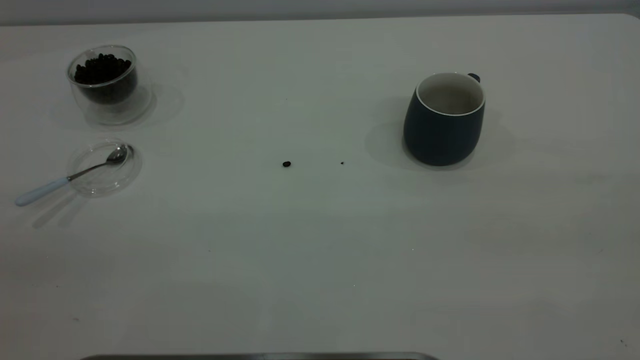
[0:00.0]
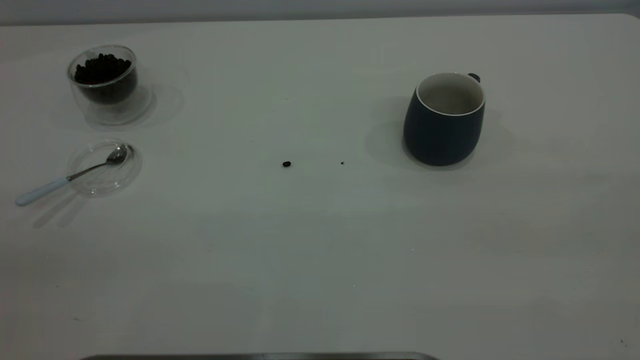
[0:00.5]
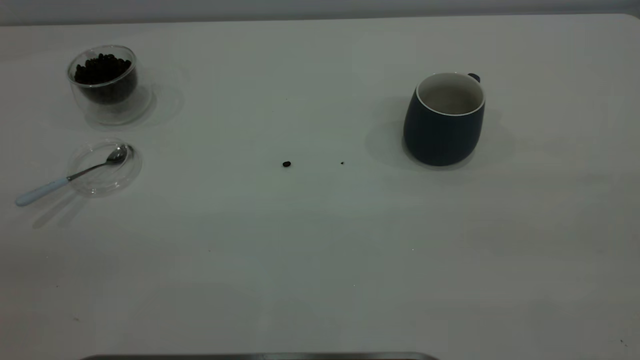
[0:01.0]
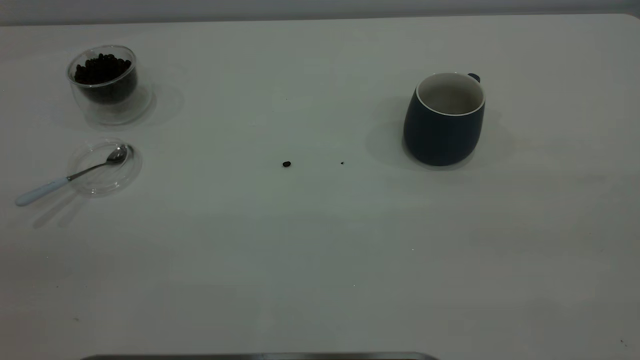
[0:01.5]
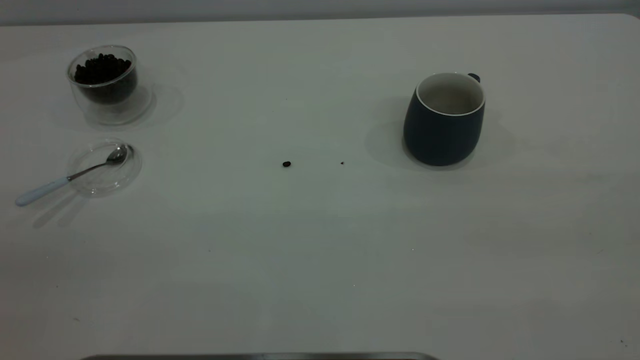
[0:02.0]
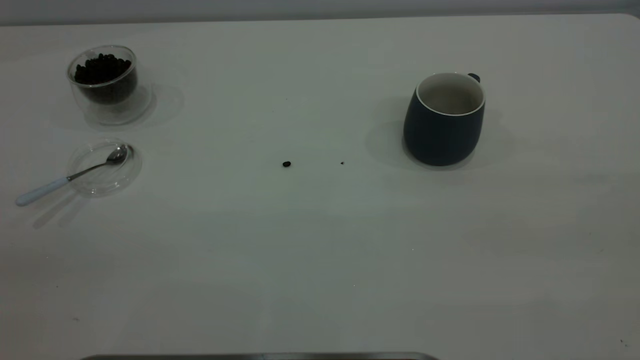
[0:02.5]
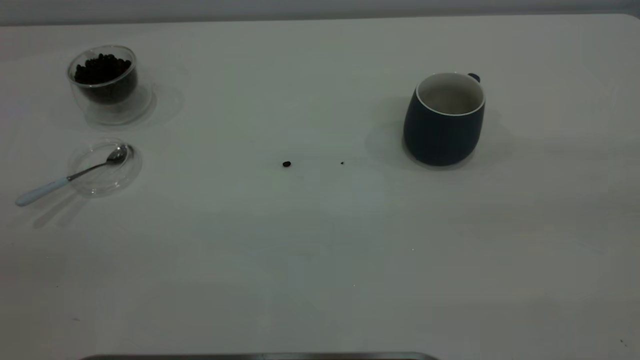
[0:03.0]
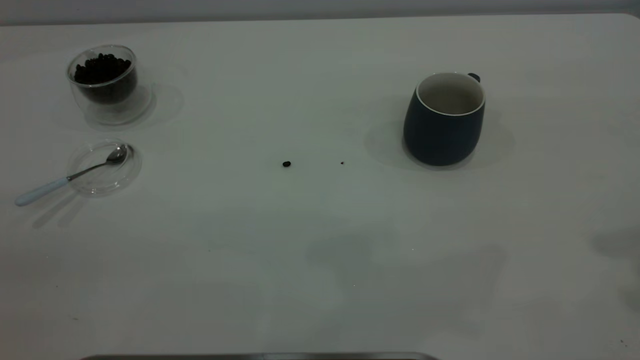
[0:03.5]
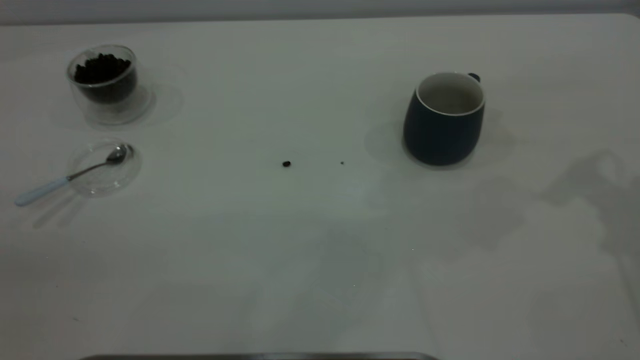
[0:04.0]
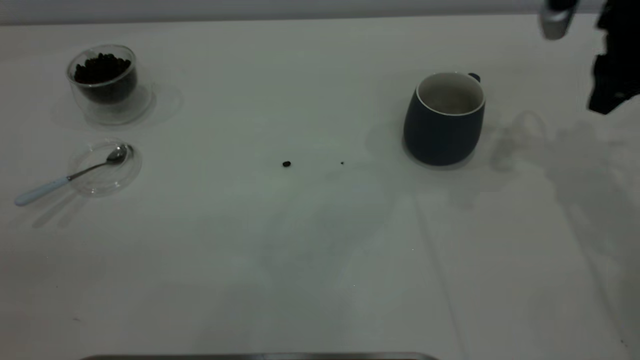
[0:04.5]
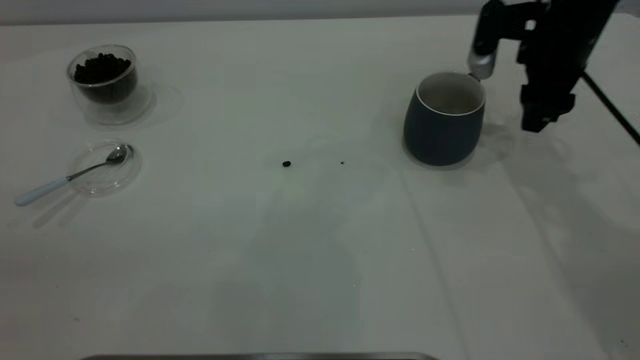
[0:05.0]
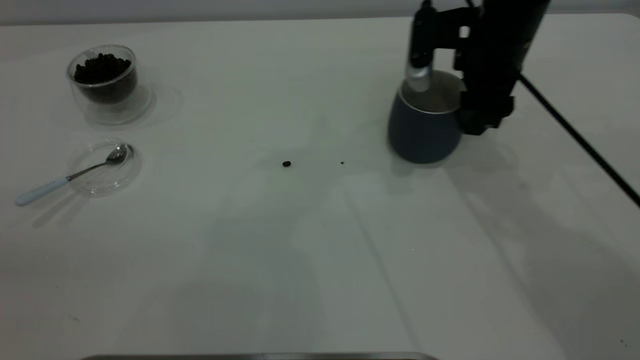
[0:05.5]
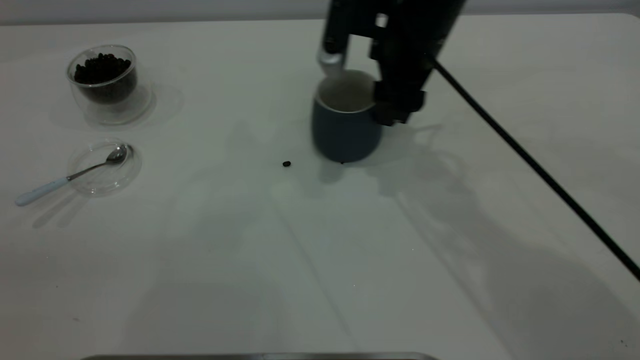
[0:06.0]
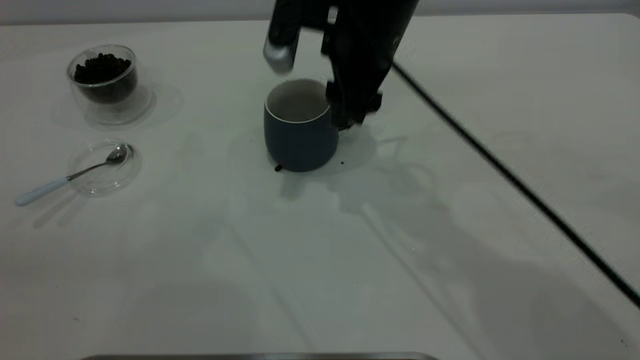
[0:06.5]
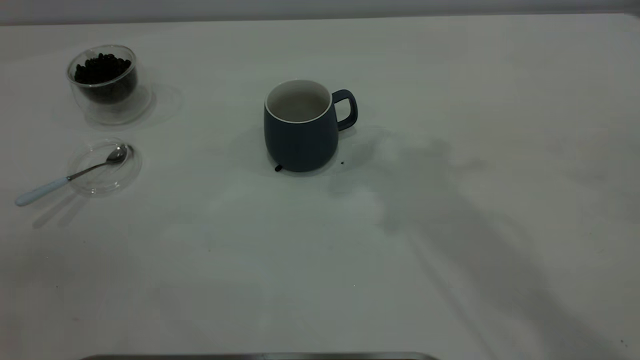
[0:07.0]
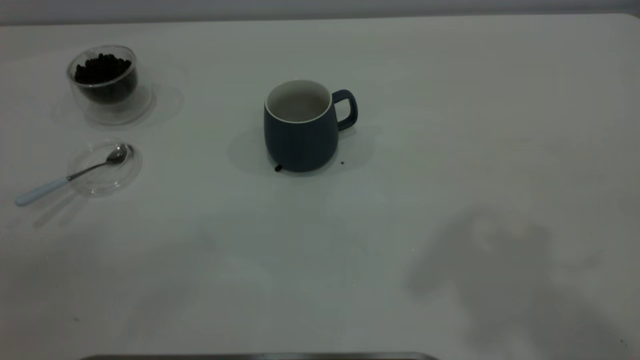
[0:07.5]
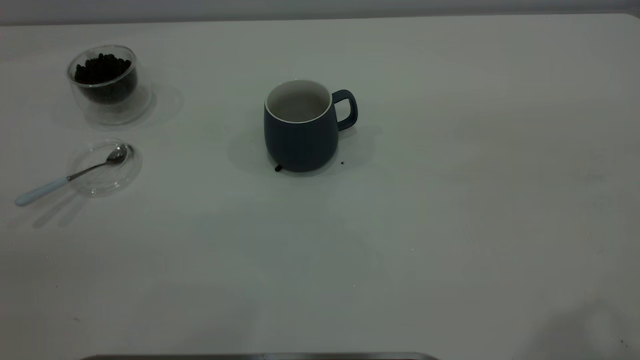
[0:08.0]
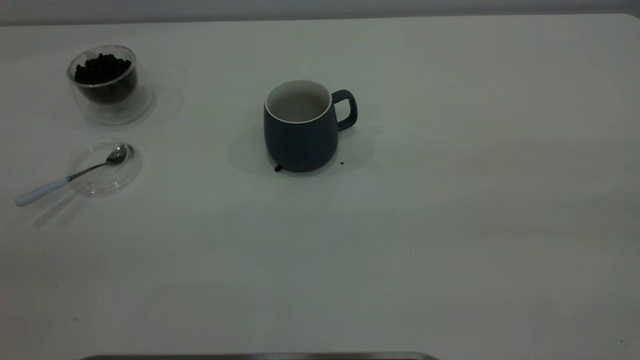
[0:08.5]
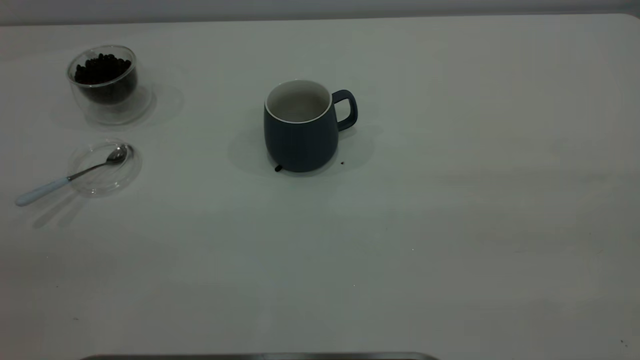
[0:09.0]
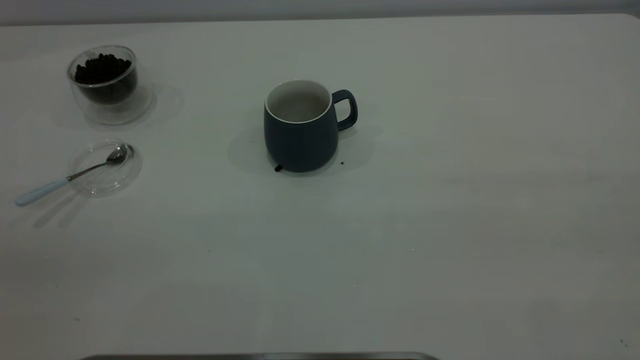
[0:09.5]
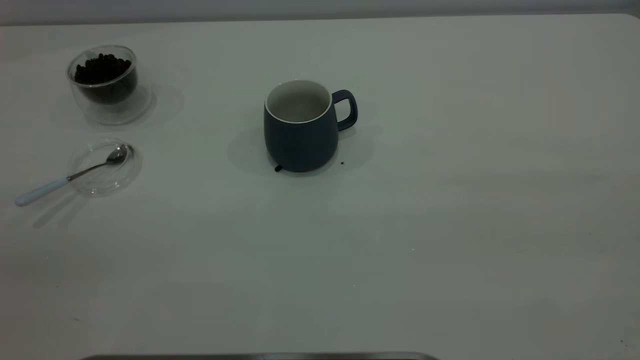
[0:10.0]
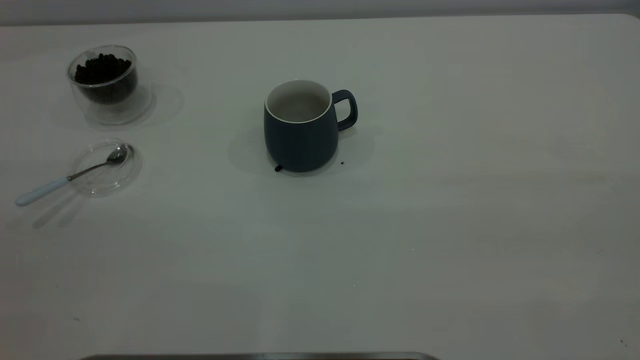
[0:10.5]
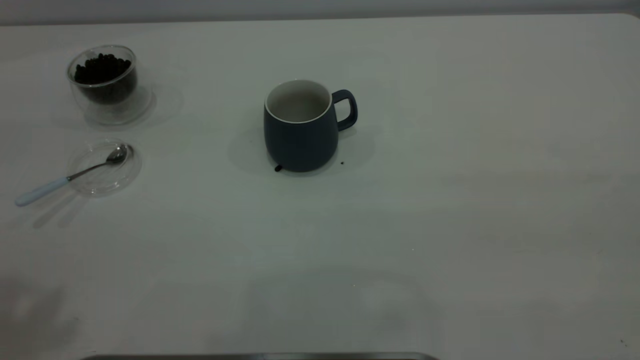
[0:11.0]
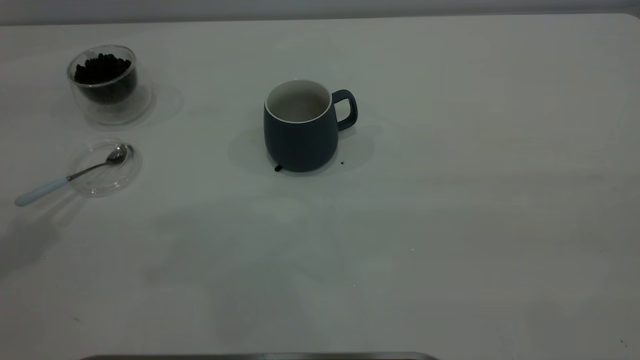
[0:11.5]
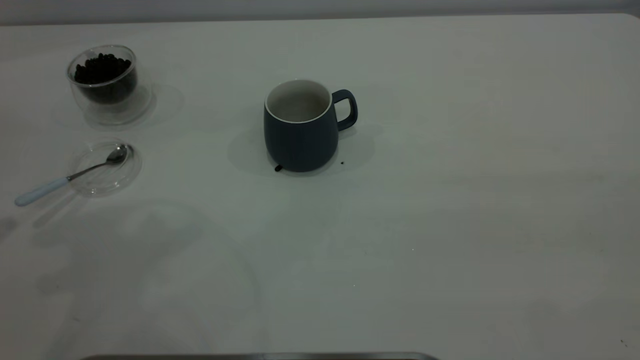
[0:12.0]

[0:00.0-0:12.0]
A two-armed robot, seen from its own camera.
Task of the whole recording: the right gripper place the grey cup in the center of the table, the left gripper take the blue spoon from the cup lid and scoop out the coffee beans from the coffee cup and put them into the grey cup, the left gripper put the spoon back into the cup lid.
Step, 0:00.0 to 0:06.5: Move the cup to the center of view.
0:00.0 to 0:02.0: The two grippers keep their place.
0:04.0 to 0:06.0: The right gripper goes about 25 cm to the left and downward.
0:06.0 to 0:08.0: The right gripper moves backward, upward and to the right, roughly 40 cm.

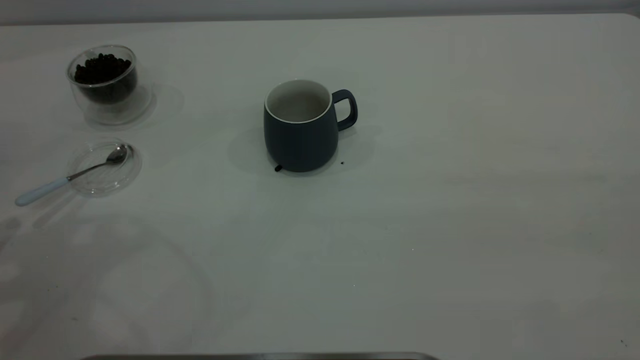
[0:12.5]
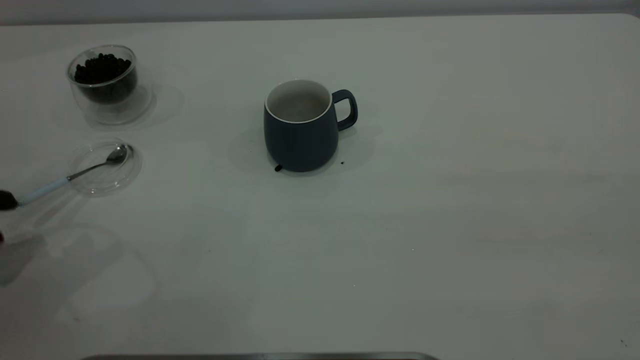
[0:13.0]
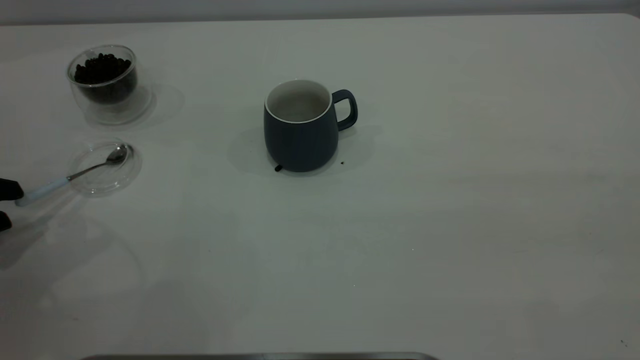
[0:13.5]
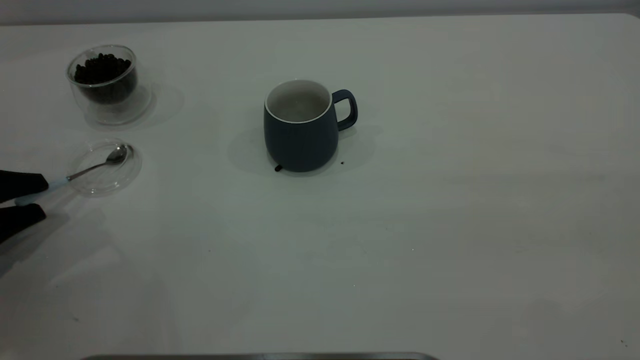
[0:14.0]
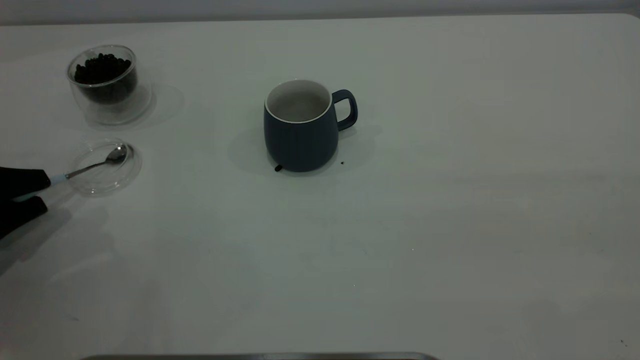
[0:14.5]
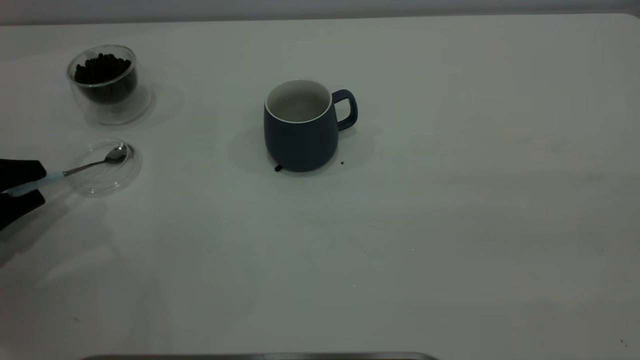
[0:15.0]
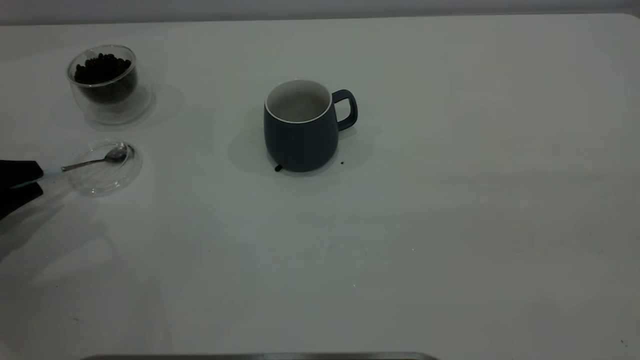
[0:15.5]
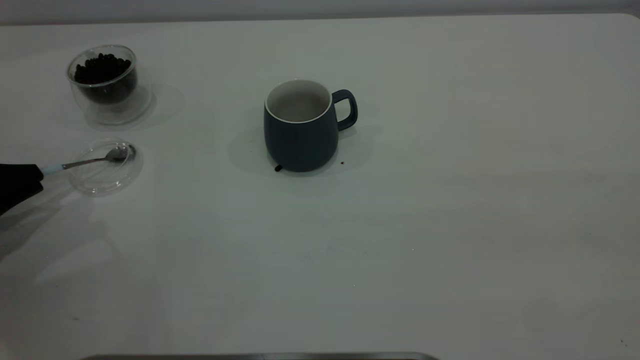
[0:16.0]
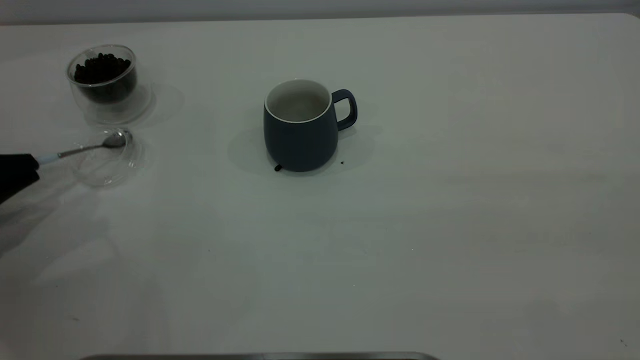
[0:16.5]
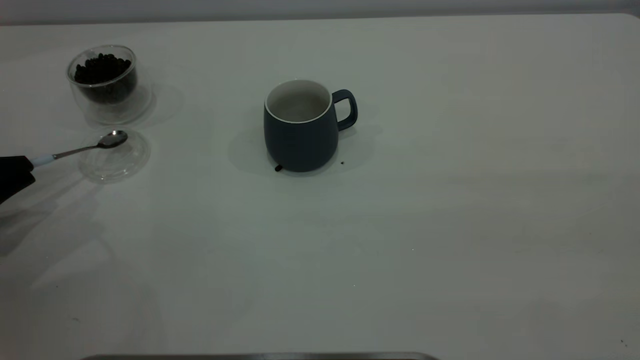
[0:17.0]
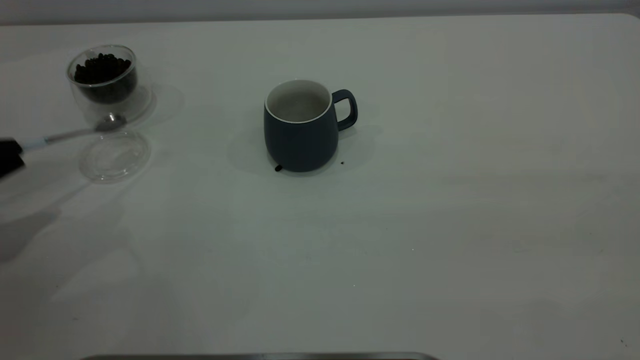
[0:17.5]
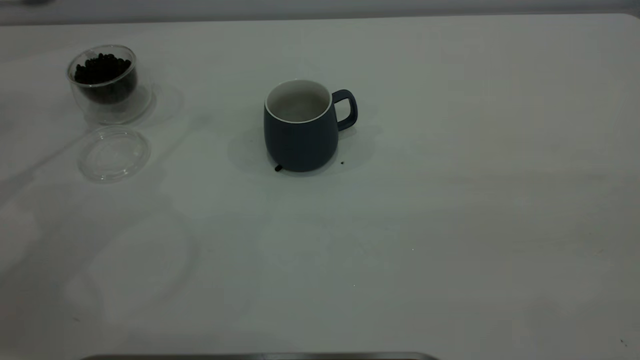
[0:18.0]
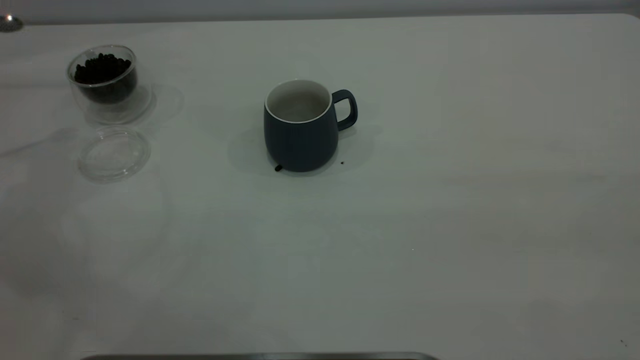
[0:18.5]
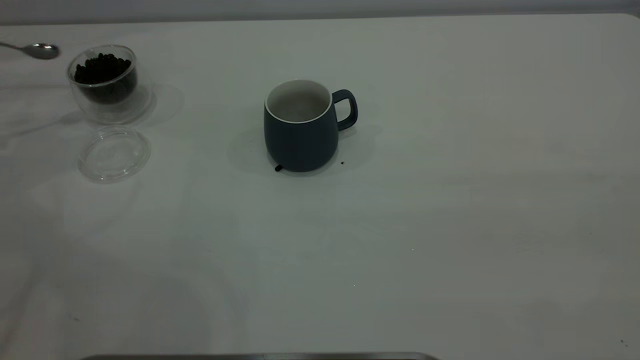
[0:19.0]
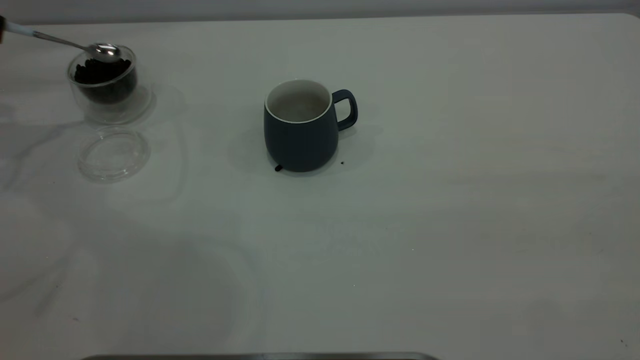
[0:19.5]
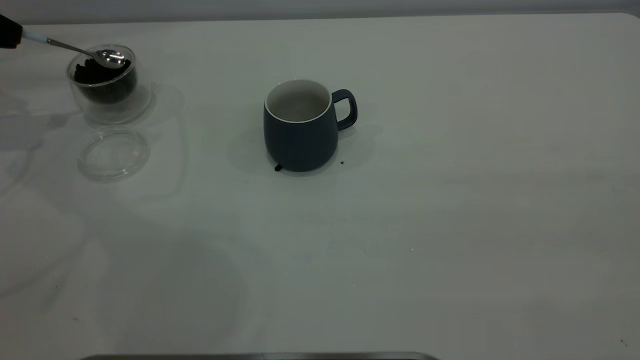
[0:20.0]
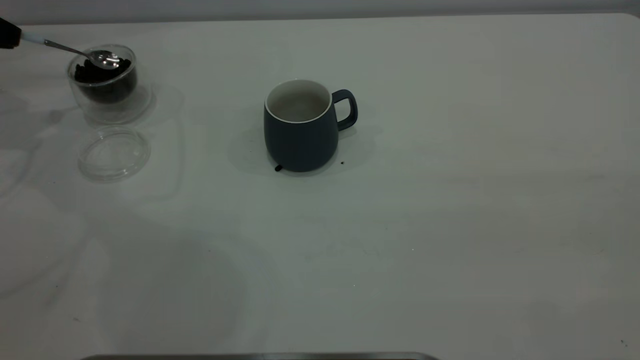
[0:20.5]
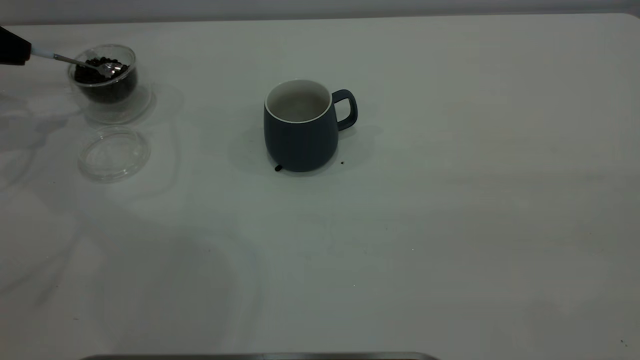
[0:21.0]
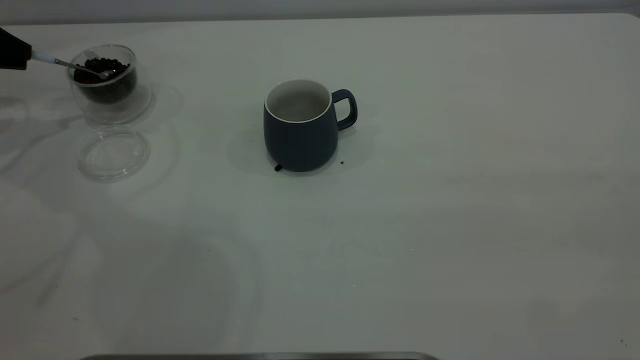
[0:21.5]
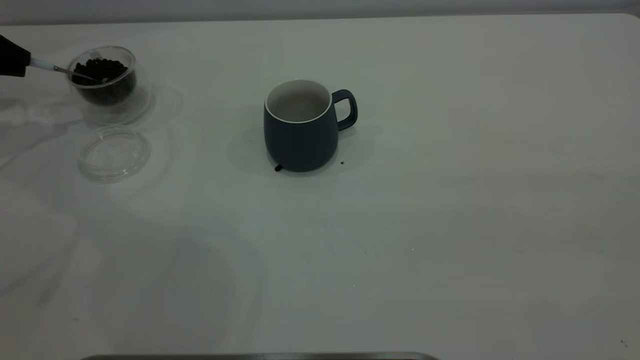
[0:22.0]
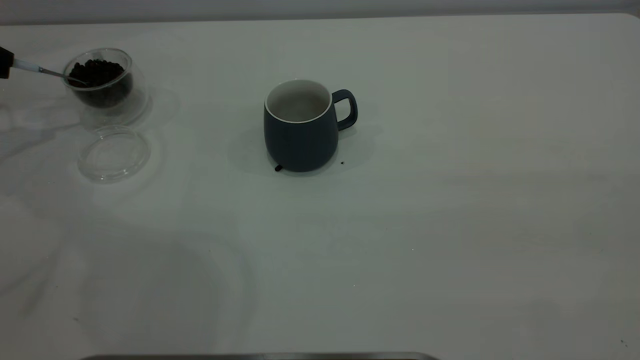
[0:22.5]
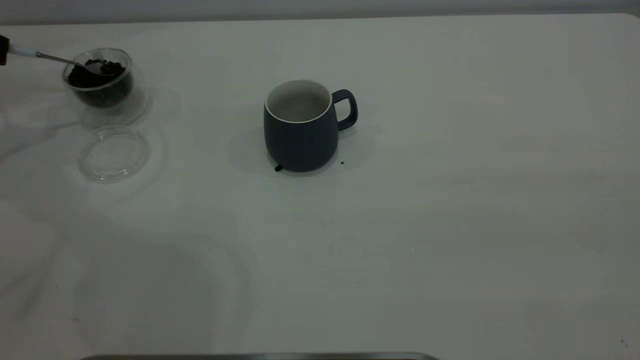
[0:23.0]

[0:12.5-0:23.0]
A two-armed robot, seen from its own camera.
Task of the whole recording: the right gripper place the grey cup in the center of the table, the left gripper take the blue spoon from the cup lid and scoop out the coffee beans from the coffee cup and put them into the grey cup, the left gripper put the spoon back into the cup lid.
Step, 0:12.5 to 0:17.5: Pick up the spoon.
0:12.5 to 0:14.5: The left gripper shifts about 15 cm downward.
0:14.5 to 0:16.5: The left gripper closes.
0:16.5 to 0:19.0: The left gripper travels upward, forward and to the left by roughly 25 cm.
0:19.0 to 0:21.0: The left gripper goes approximately 5 cm to the right.
